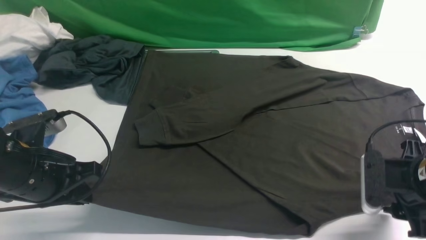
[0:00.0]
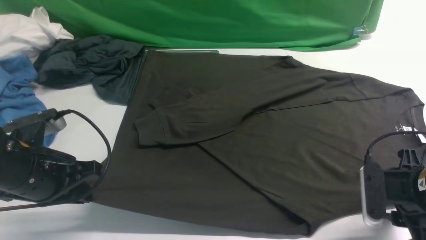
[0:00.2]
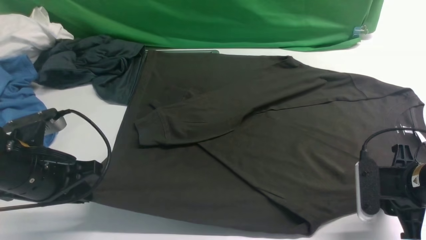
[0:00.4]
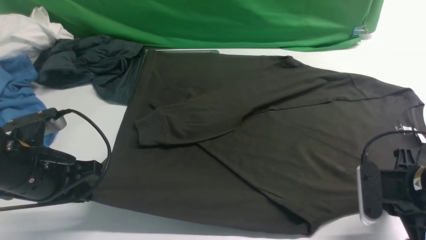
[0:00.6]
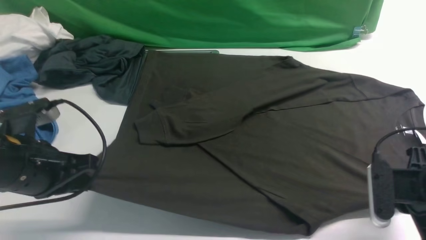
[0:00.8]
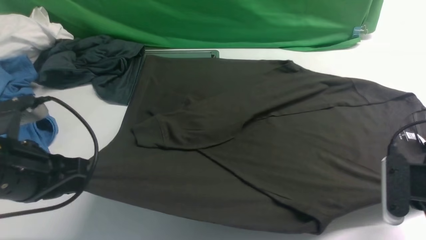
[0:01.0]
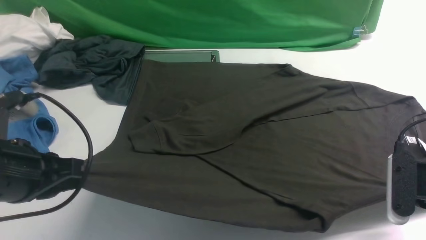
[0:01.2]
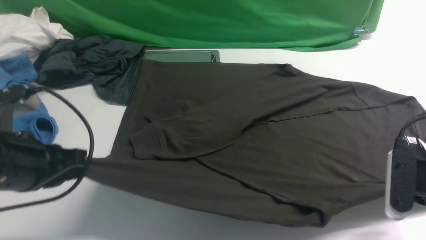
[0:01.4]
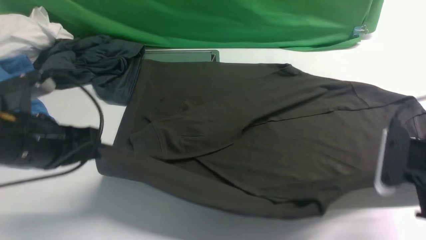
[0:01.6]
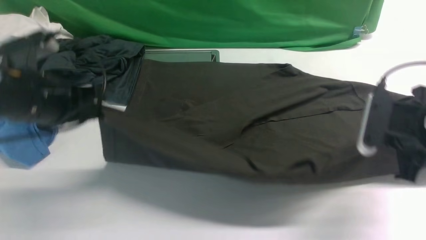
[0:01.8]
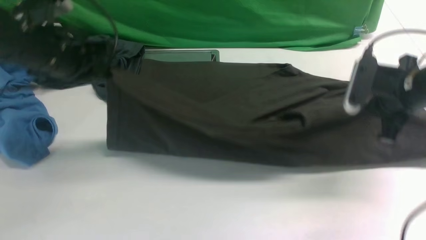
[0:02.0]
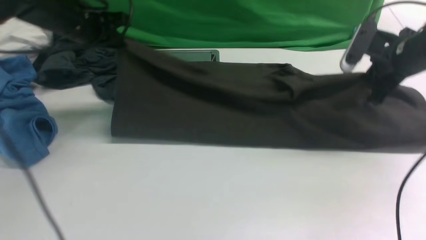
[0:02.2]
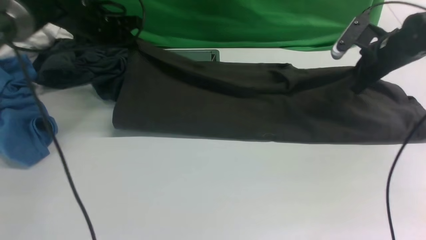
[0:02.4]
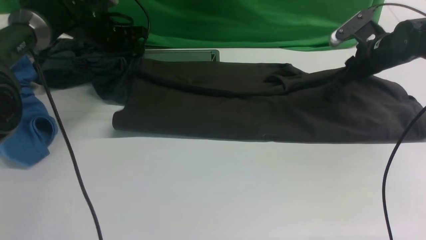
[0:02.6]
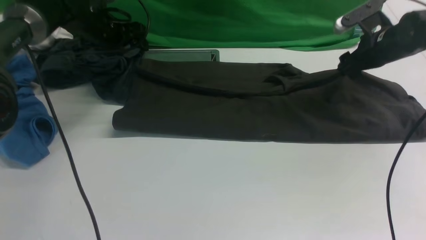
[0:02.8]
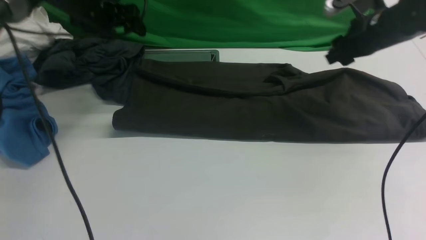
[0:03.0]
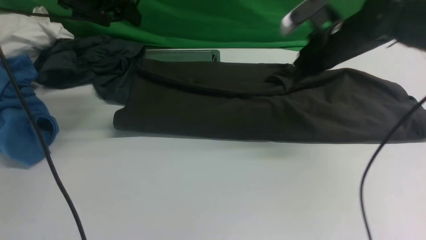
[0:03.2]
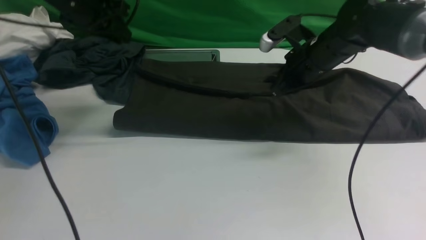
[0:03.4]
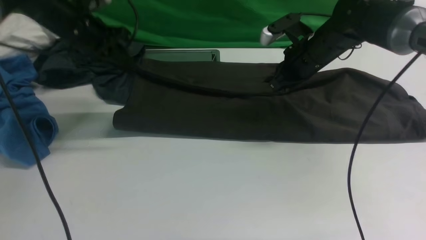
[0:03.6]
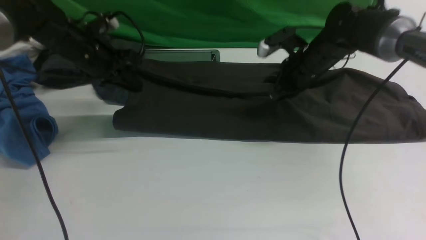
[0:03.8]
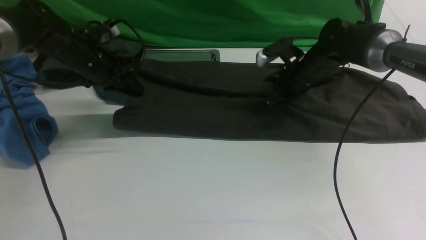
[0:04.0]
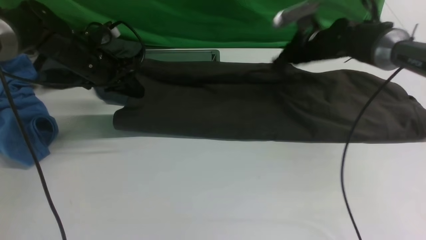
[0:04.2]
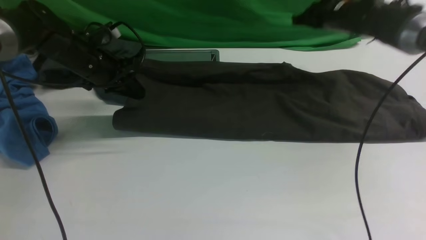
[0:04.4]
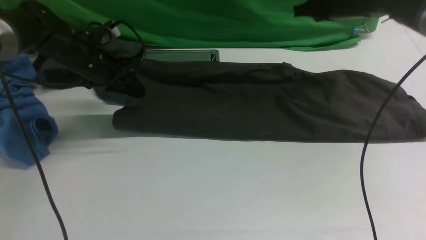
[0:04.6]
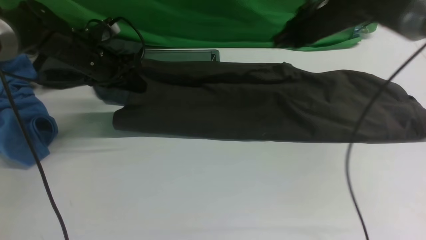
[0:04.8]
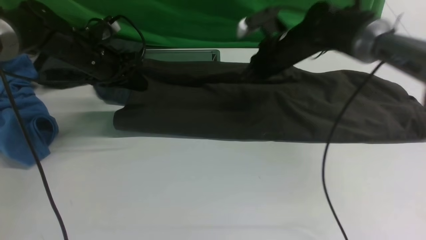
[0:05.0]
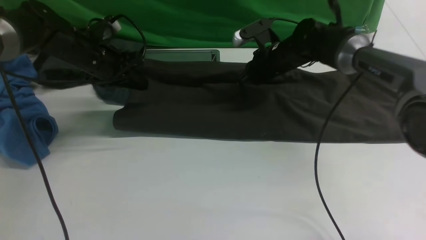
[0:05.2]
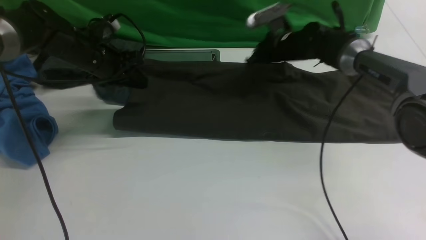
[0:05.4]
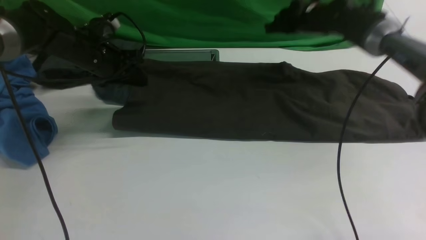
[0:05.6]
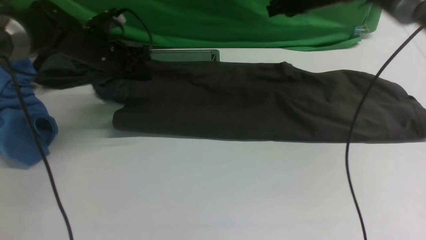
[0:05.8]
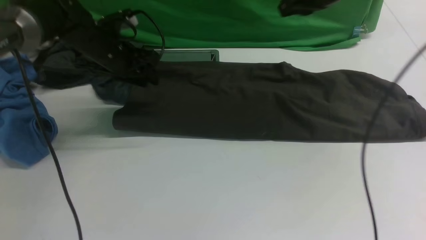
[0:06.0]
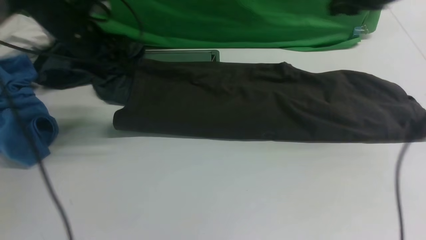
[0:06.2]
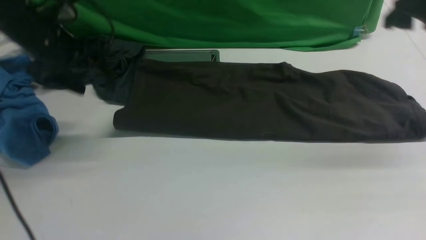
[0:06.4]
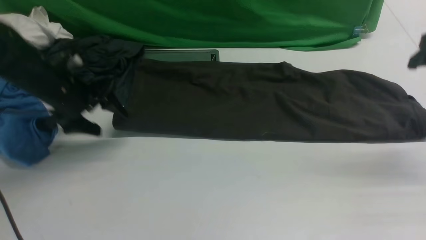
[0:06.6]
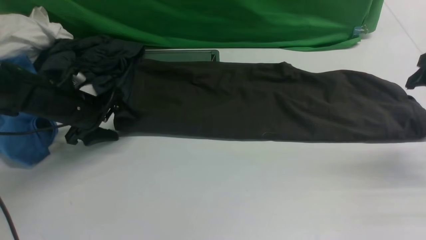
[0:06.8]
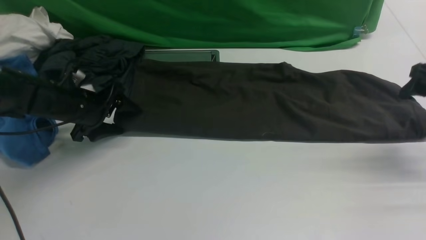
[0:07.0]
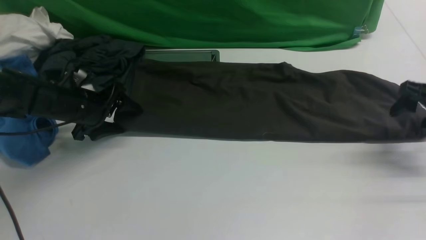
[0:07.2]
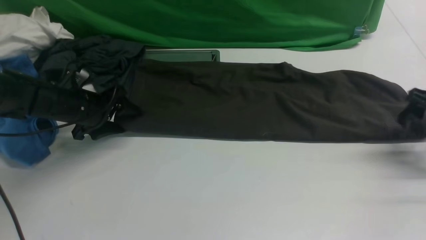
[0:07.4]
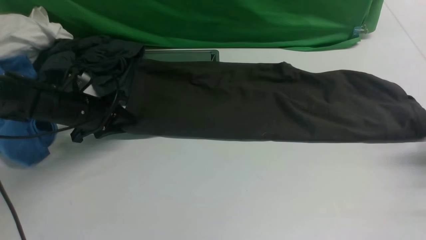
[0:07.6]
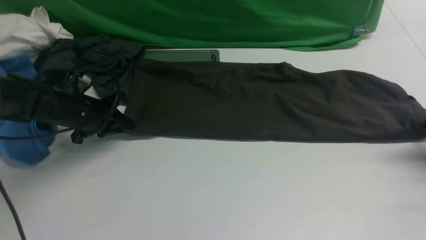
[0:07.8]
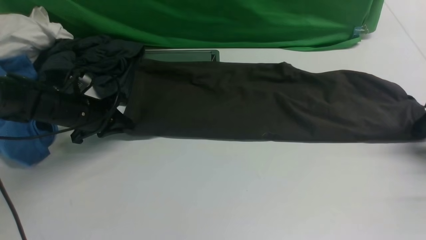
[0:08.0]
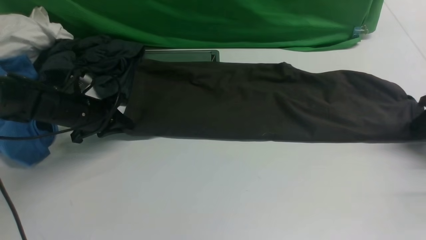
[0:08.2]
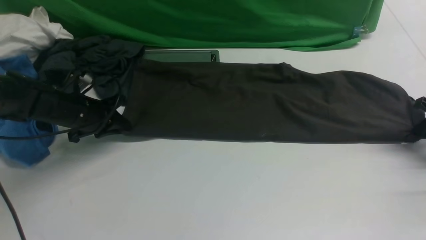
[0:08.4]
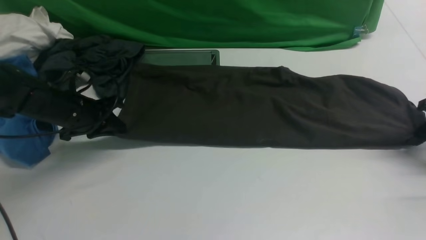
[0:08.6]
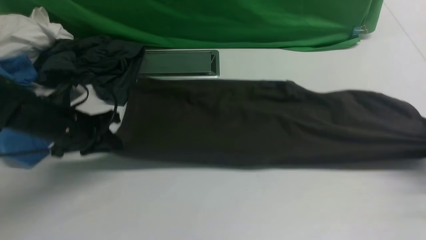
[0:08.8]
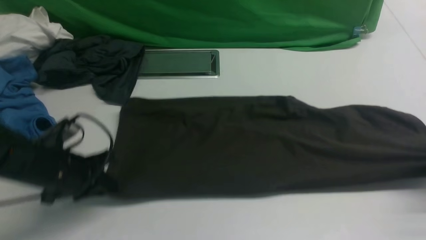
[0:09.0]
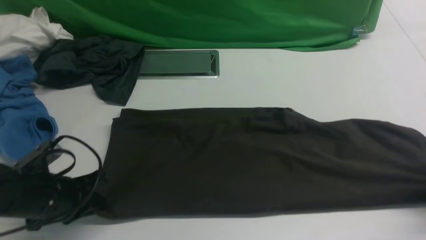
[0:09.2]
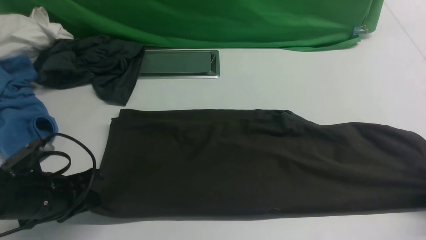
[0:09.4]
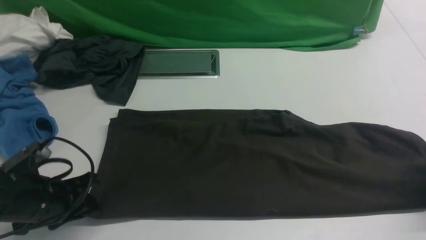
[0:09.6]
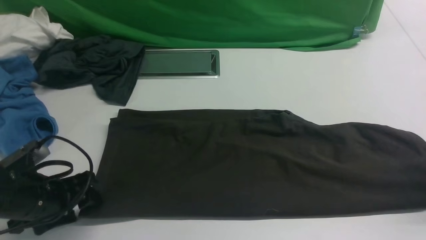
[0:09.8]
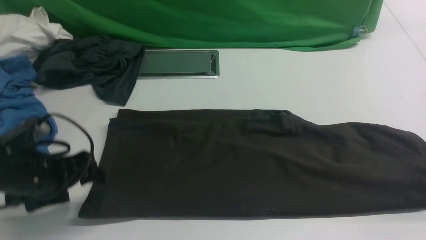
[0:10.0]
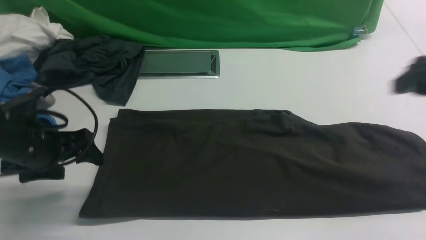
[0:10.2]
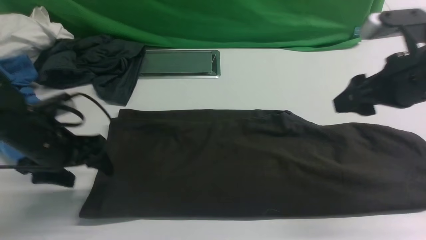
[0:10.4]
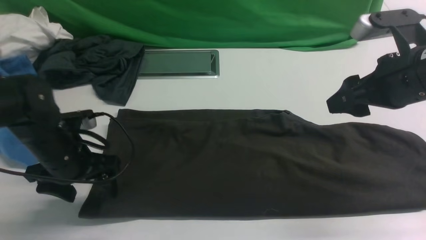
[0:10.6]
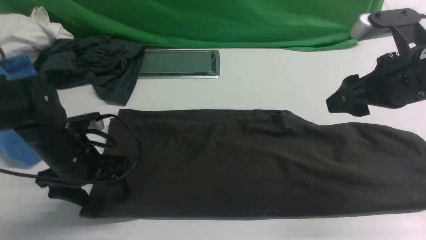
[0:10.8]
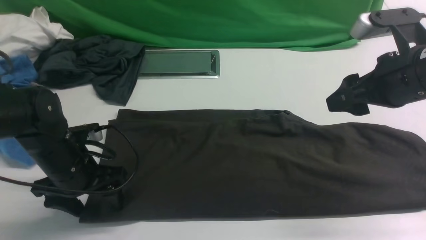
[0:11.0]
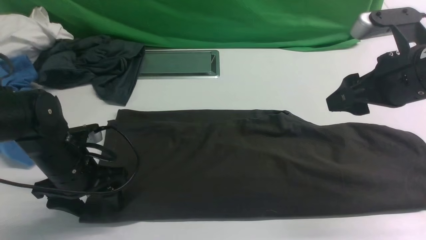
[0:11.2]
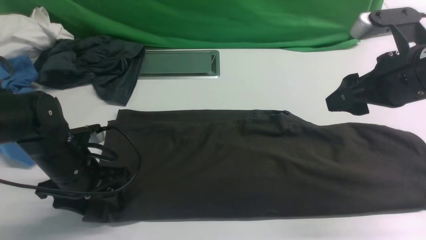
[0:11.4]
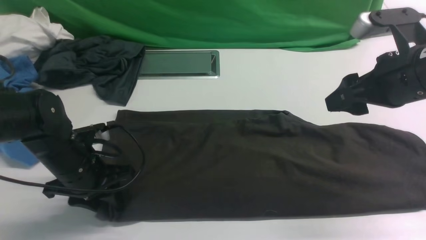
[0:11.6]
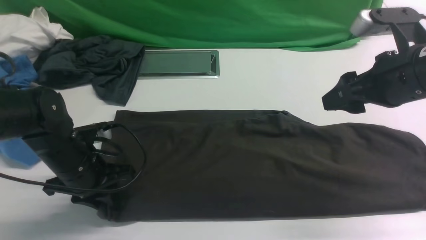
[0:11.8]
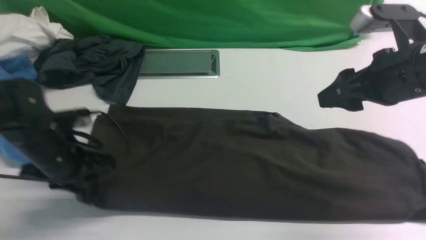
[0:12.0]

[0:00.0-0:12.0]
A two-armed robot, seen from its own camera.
Step, 0:01.2 to 0:06.4: use both arms to drag the lower edge of the fabric forward and fold it over the upper edge.
0:00.0 to 0:01.6: The grippers both shift upward by approximately 5 cm. The right gripper closes its fingers.
0:01.6 to 0:03.0: The grippers both shift forward by about 25 cm. The left gripper opens its fingers. The right gripper opens.
0:03.0 to 0:04.4: The left gripper shifts approximately 10 cm downward and backward, and closes its fingers. Meanwhile the right gripper travels forward by roughly 10 cm, and closes its fingers.
0:04.4 to 0:06.0: The right gripper is displaced upward and backward by approximately 10 cm, while the left gripper opens.
0:06.0 to 0:07.6: The left gripper moves downward and backward, roughly 10 cm, and opens, then closes again; the right gripper travels to the right, downward and backward by some 30 cm, and opens its fingers.
0:07.6 to 0:09.0: The left gripper travels backward by approximately 10 cm; the right gripper is displaced backward by about 5 cm, and closes up.
0:09.0 to 0:10.4: The left gripper opens. The right gripper moves to the left and upward, roughly 20 cm, and opens up.
0:10.4 to 0:12.0: The left gripper closes its fingers.

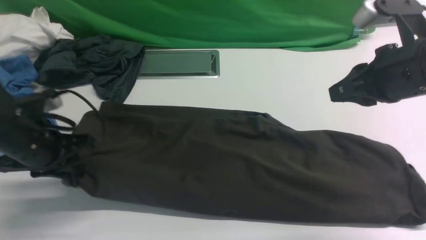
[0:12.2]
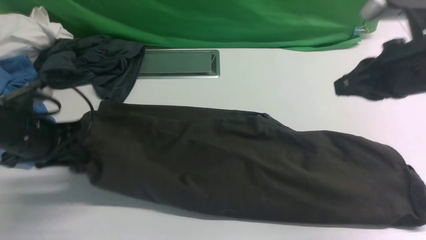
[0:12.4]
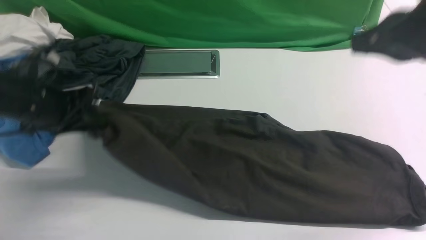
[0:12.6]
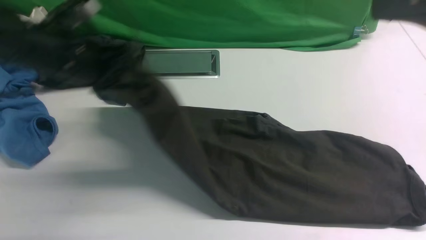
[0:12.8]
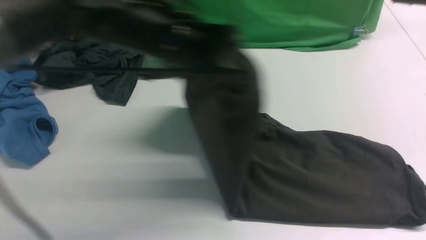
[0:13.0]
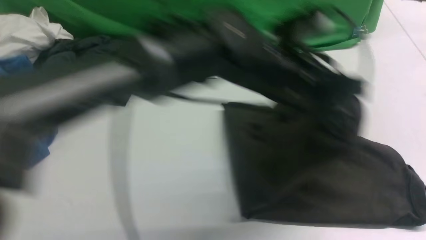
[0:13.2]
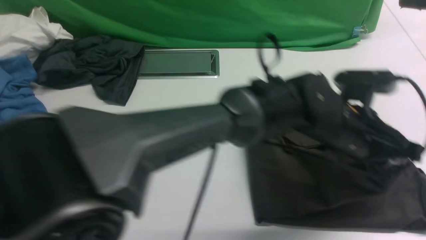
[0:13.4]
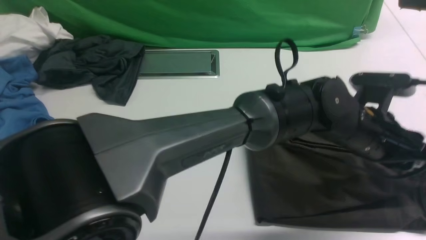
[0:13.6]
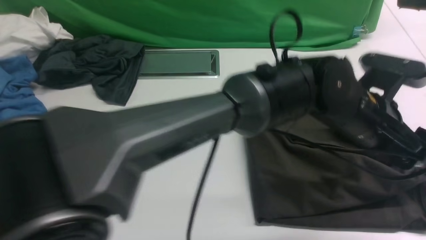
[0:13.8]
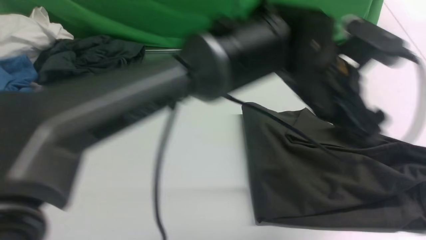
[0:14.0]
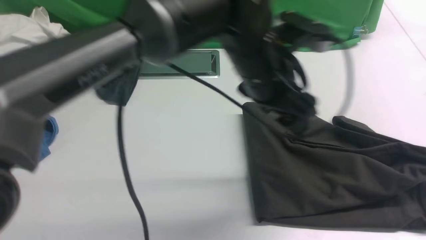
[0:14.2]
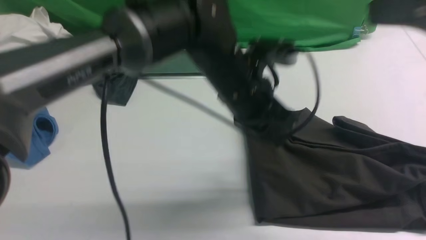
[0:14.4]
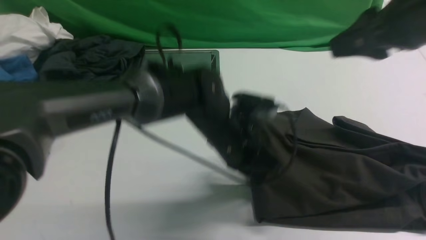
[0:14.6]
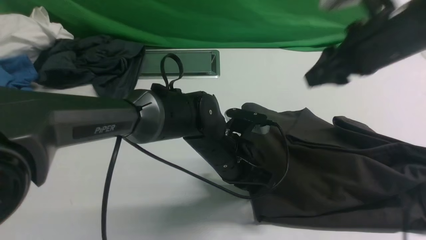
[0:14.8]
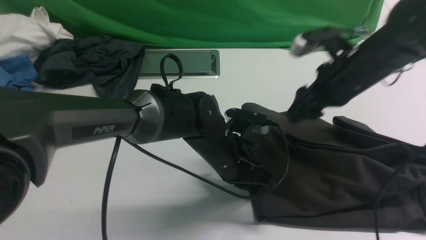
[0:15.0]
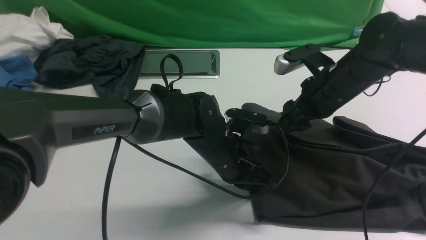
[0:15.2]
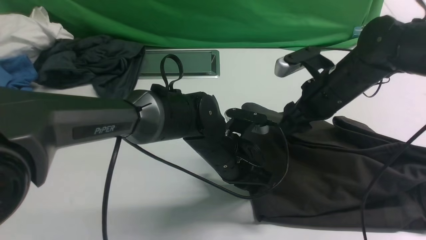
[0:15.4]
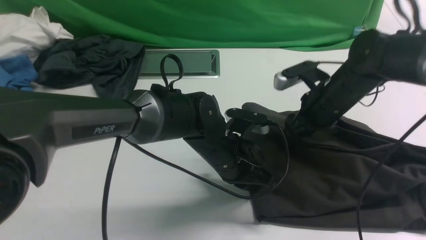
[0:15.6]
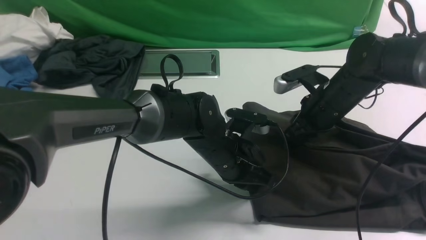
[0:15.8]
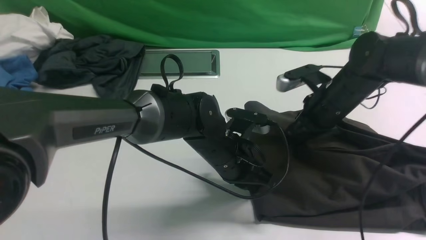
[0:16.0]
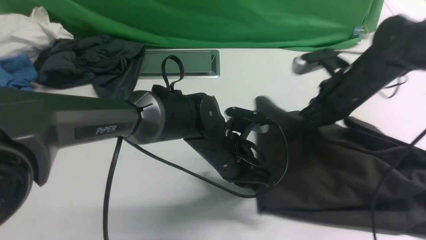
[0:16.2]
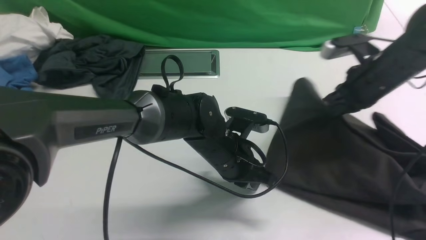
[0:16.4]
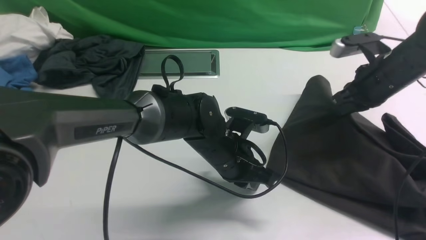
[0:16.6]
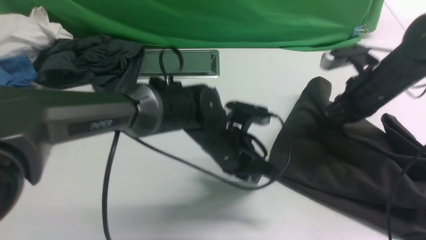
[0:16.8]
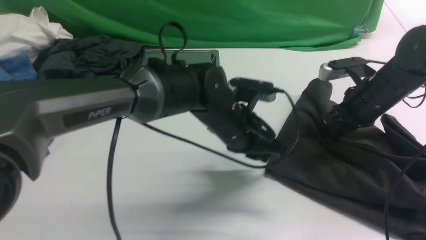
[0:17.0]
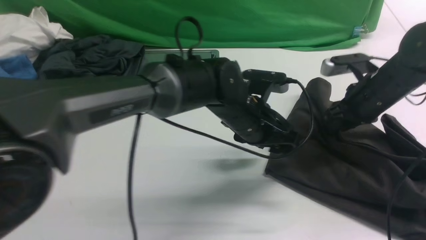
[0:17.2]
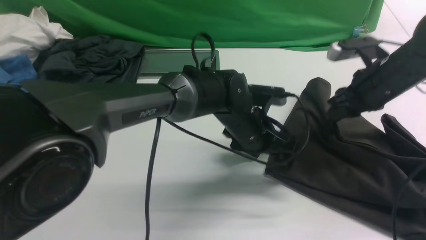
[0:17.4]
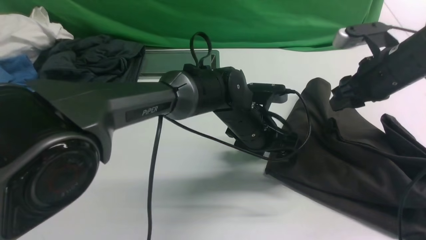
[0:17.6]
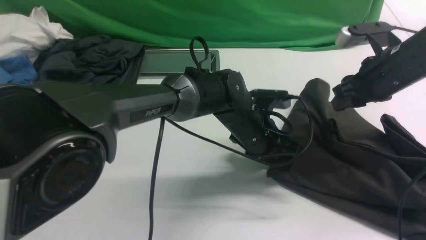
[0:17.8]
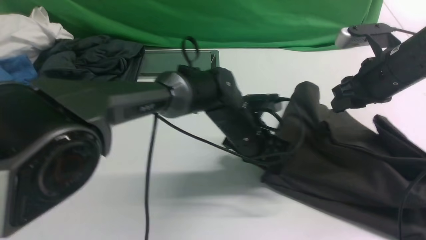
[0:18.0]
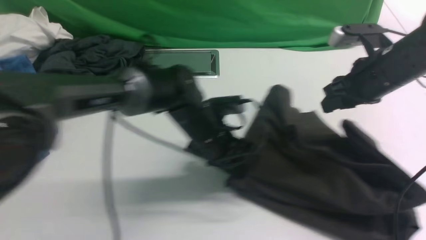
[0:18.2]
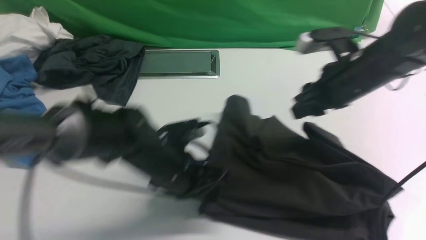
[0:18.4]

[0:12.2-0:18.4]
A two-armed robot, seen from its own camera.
Step, 0:12.4 to 0:13.8: Drag the left edge of the fabric to the left with your left arm and fold it to the right edge.
0:12.2 to 0:13.8: The left gripper is displaced to the right by roughly 40 cm, and opens. The right gripper shifts some 15 cm upward and backward.
0:13.8 to 0:15.4: The left gripper shifts approximately 20 cm to the left and downward, and closes. Meanwhile the right gripper is displaced downward and forward by roughly 30 cm, and opens up.
0:15.4 to 0:16.8: The right gripper travels to the right by approximately 5 cm, and closes its fingers.
0:16.8 to 0:18.4: The grippers both shift to the left by approximately 10 cm. The left gripper opens, then closes once more.
